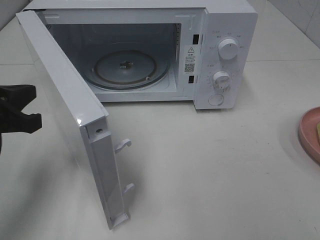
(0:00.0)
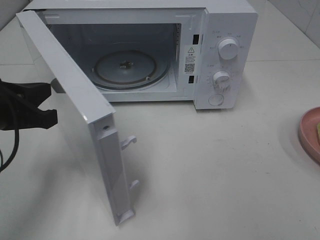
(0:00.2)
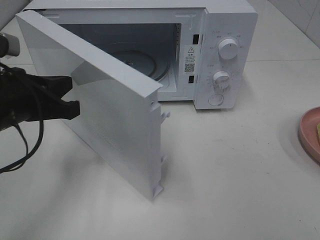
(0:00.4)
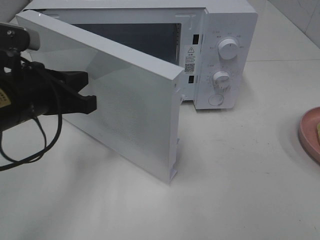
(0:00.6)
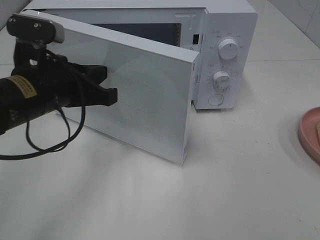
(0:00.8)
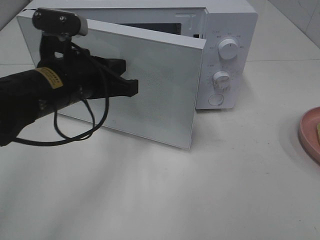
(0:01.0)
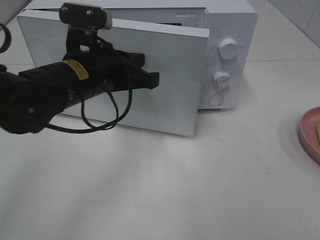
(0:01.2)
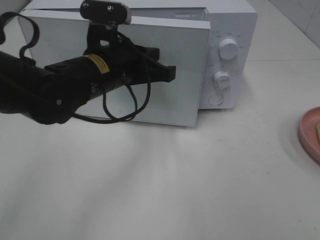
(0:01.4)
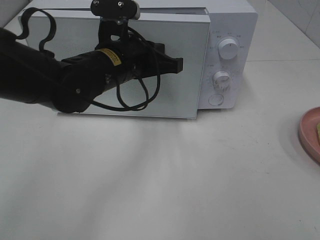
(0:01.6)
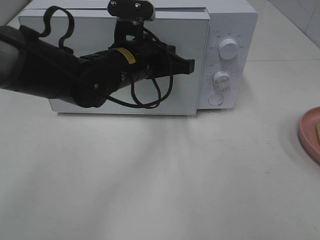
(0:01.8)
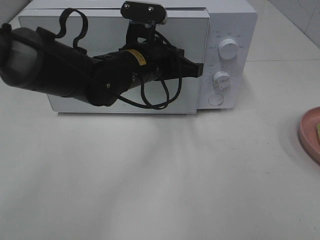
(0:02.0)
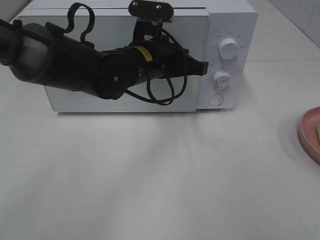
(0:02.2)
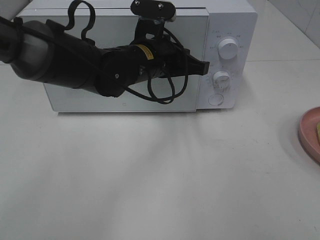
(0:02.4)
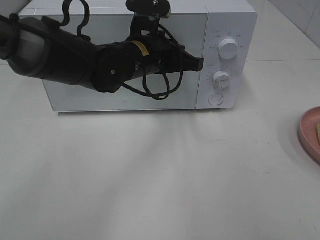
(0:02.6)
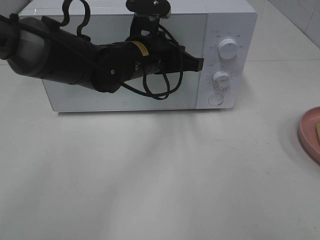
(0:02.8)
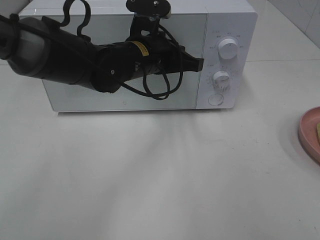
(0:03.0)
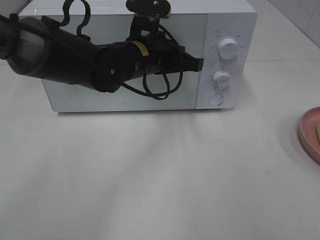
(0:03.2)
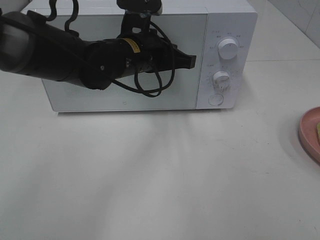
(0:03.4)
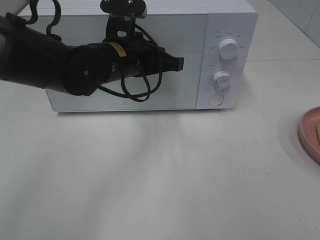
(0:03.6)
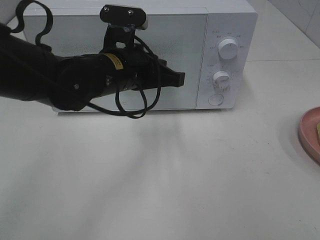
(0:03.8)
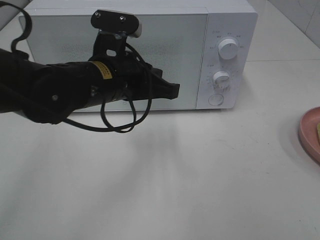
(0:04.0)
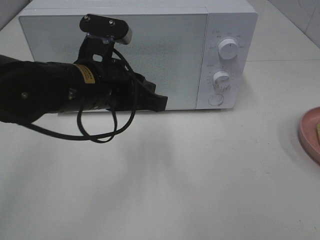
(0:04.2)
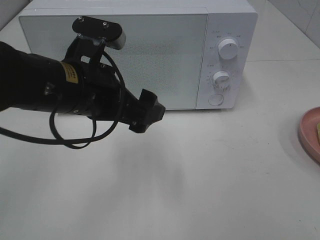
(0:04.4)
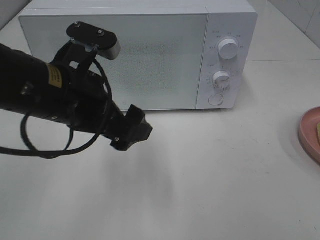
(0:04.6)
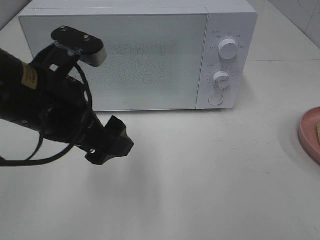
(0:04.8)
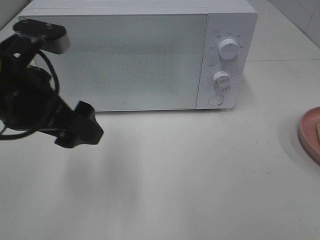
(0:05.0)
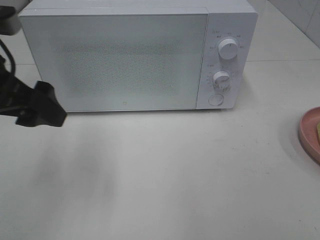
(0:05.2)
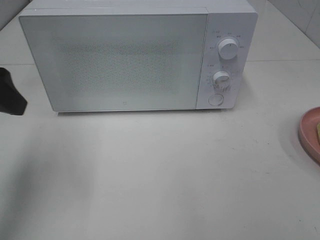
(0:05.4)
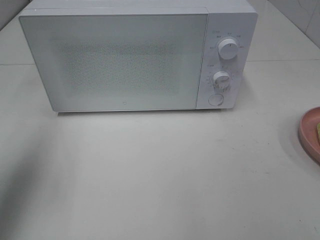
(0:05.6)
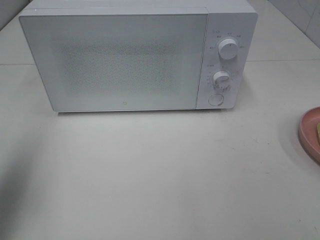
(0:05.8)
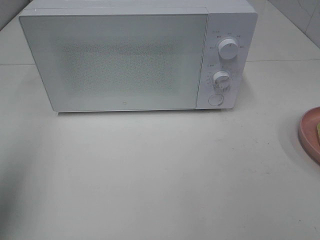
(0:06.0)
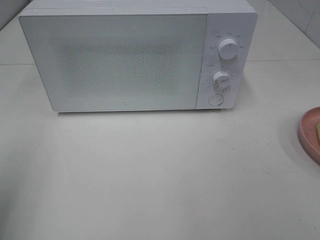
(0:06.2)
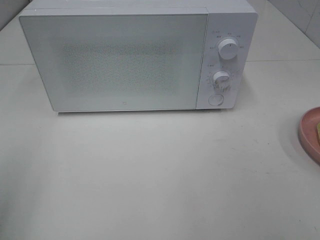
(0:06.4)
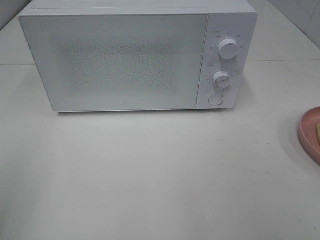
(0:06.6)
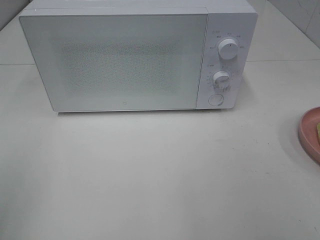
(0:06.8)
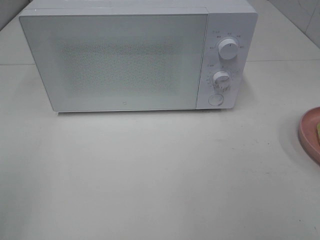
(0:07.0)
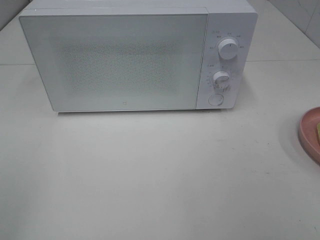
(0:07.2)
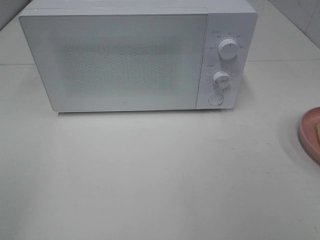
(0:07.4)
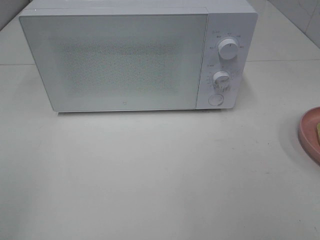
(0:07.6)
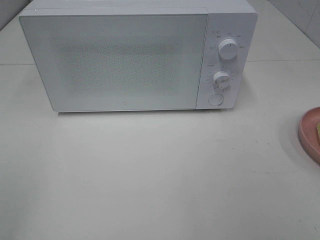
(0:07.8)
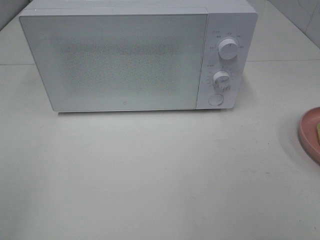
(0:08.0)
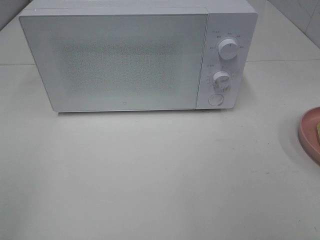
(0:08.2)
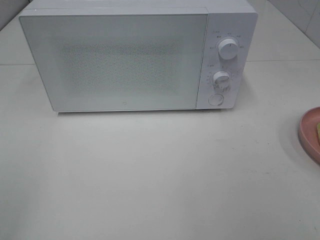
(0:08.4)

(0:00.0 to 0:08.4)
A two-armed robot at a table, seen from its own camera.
Task of the whole recording: Heat Sandwich.
Step, 0:00.0 - 0:04.2: Left hand: close the microwave door.
0:00.0 - 0:01.4: The left gripper heads to the right and forward, covering some 20 cm.
0:01.4 - 0:02.8: The left gripper moves forward, roughly 5 cm.
0:02.8 - 0:04.2: The left gripper travels backward and to the left by roughly 10 cm.
0:04.2 - 0:05.6: The left gripper travels to the left and upward by some 25 cm, and opens.
0:05.6 - 0:07.0: The left gripper moves backward, about 20 cm.

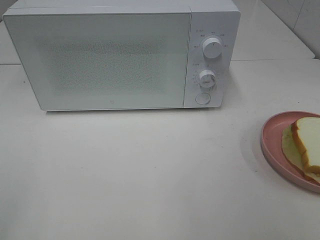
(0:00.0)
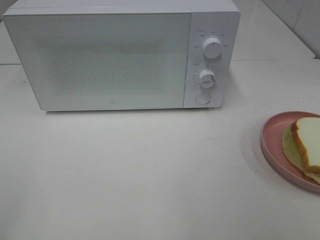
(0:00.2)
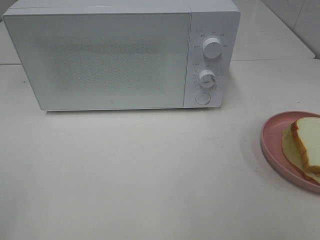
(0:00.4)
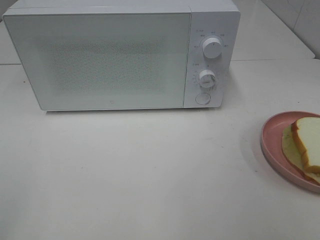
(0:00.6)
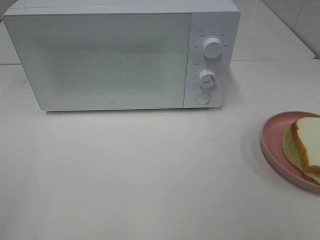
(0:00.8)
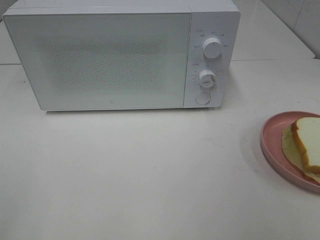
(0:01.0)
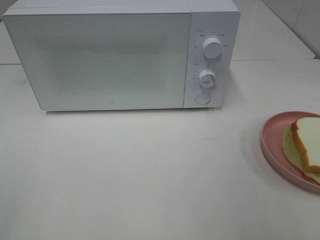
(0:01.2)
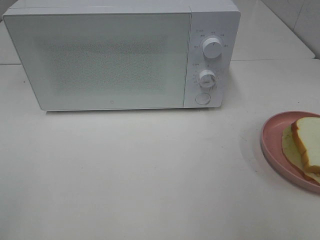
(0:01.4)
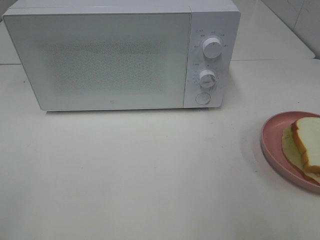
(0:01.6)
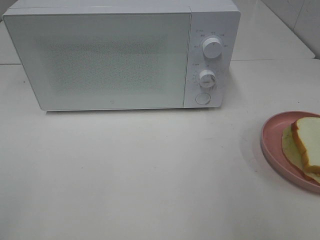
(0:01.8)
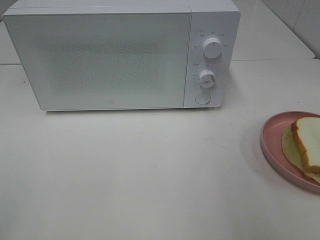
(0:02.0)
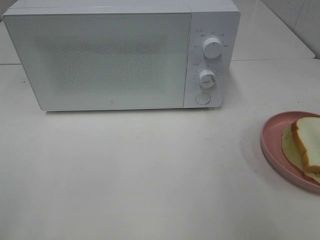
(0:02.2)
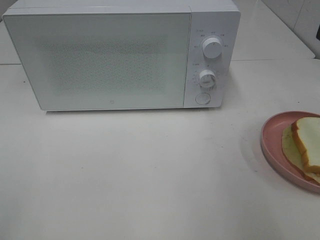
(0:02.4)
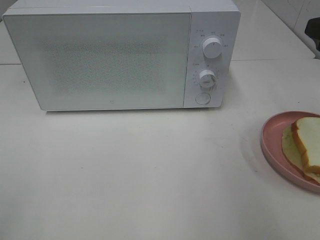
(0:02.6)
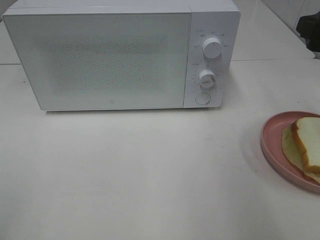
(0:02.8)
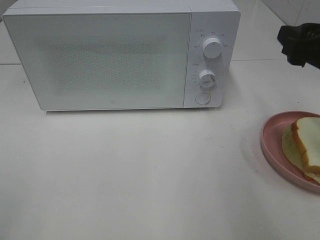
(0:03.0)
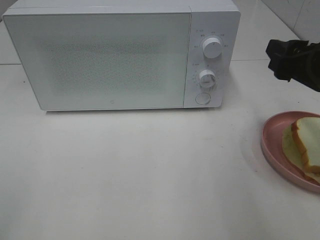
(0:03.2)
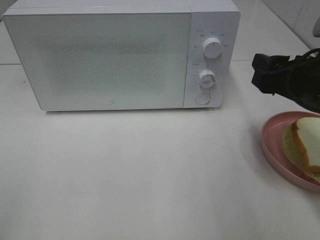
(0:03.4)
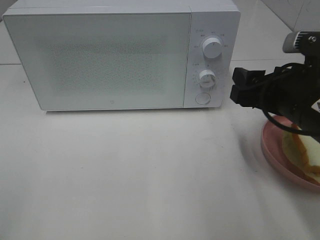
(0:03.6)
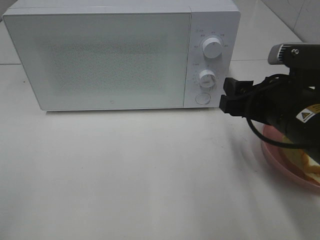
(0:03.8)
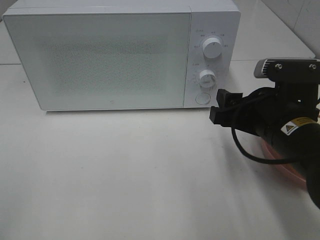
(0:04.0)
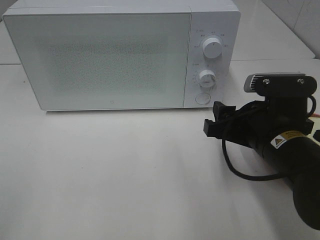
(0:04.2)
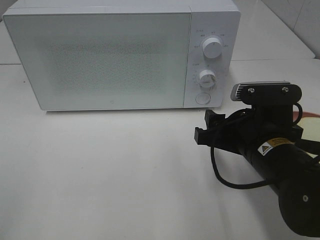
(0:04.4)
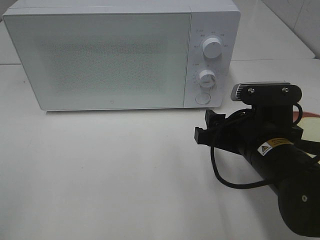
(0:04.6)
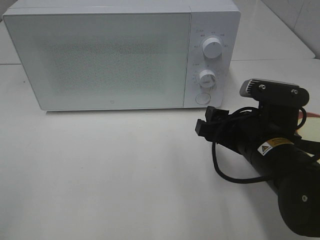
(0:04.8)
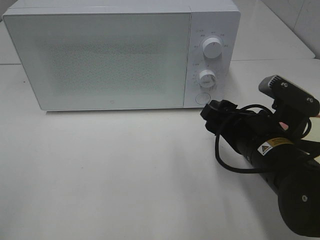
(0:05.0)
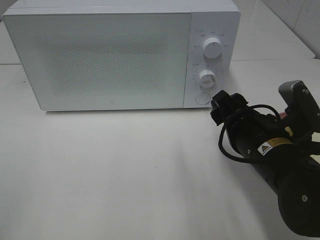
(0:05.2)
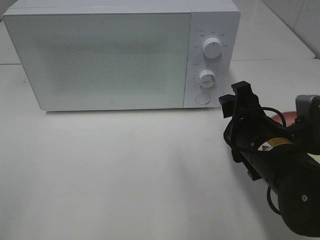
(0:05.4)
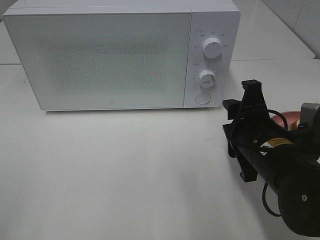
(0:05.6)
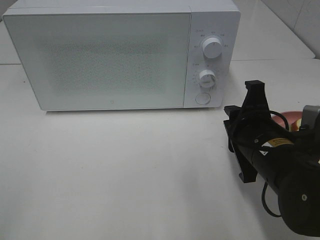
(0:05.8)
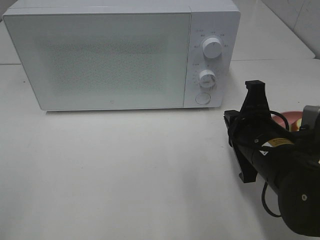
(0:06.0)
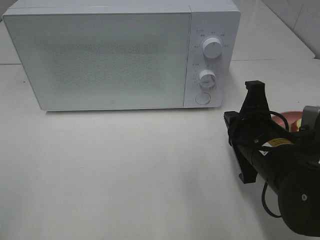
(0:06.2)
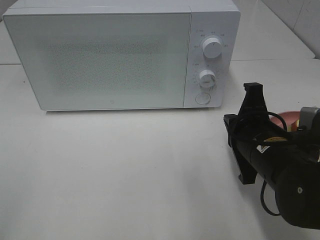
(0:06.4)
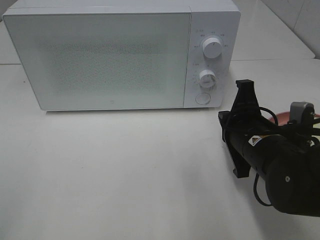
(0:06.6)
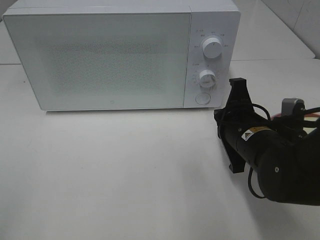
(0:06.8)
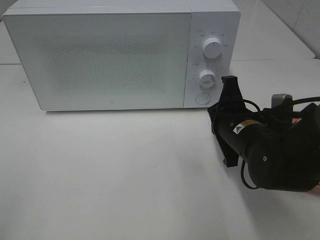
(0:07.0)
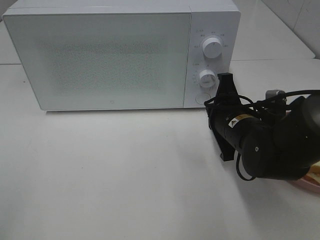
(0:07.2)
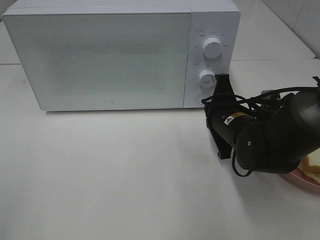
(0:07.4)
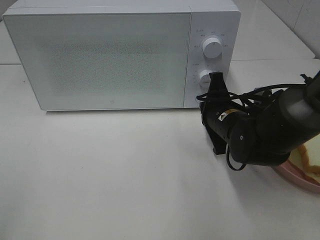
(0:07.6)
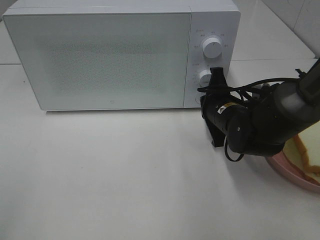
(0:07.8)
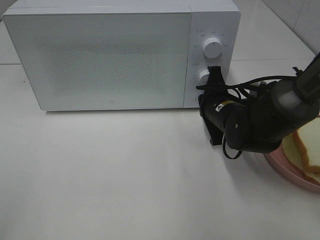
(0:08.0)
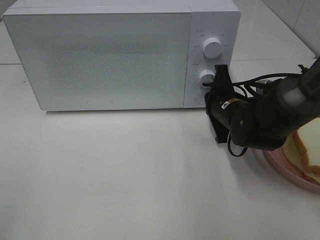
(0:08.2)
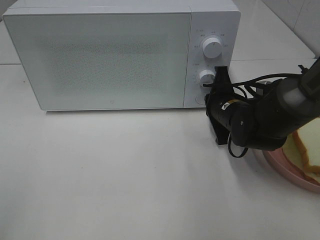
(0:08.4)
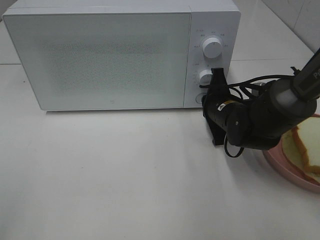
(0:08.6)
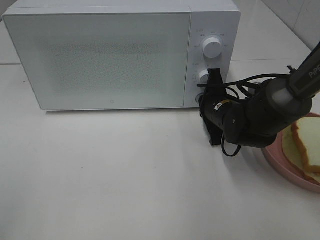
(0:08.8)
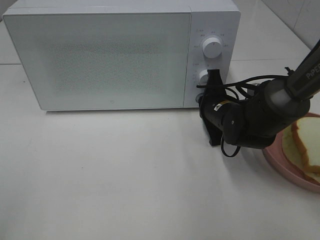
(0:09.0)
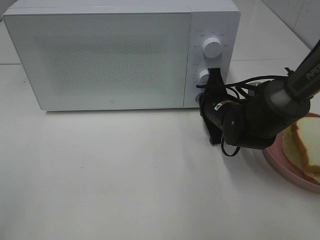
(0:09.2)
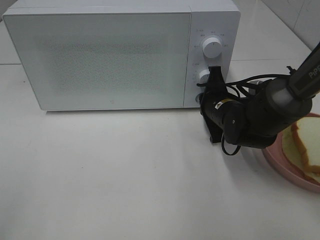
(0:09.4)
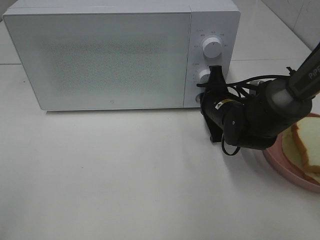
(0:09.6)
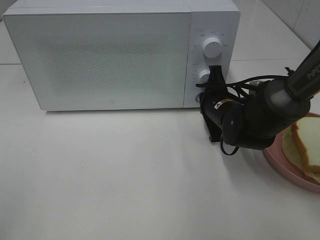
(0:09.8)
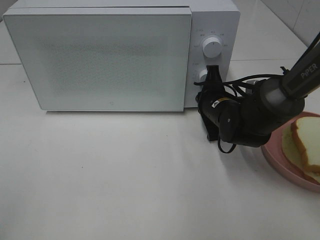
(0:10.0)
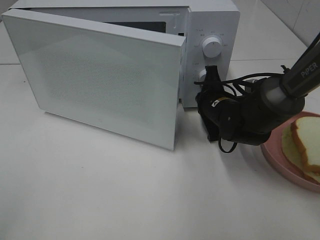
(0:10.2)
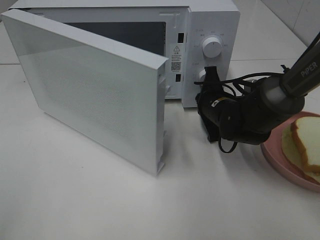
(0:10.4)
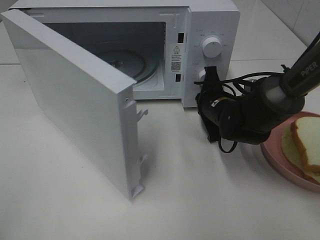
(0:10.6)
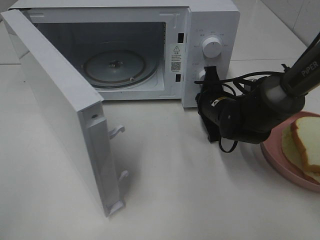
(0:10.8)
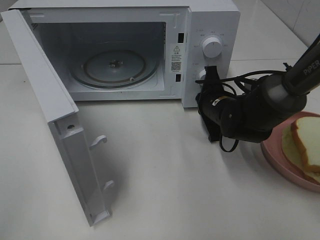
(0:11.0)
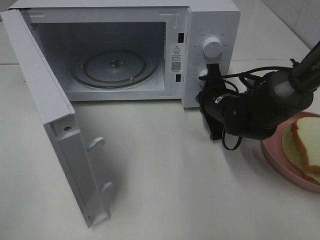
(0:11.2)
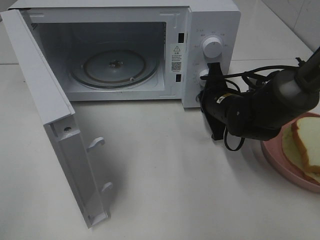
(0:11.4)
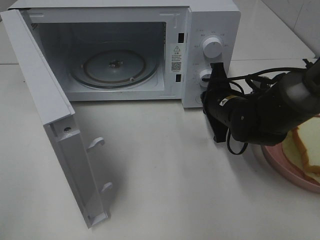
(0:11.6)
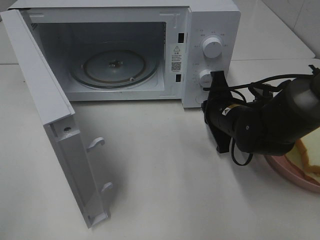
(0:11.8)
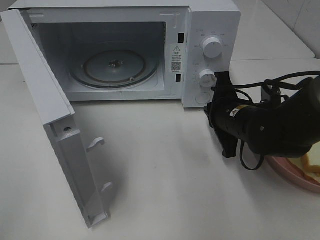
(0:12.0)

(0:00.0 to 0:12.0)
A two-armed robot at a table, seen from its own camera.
Task of the whole recording: Heat Sandwich.
Step, 0:00.0 - 0:11.6: Right hand: press the switch.
0:01.6 - 0:03.0: The right gripper goes roughly 15 cm forward and downward.
0:03.0 - 0:04.4: The right gripper moves downward and to the left, about 15 cm.
0:04.4 - 0:06.0: The right gripper closes its fingers.
0:06.0 - 0:07.6: The right gripper is displaced forward by approximately 10 cm.
0:07.6 - 0:09.0: The grippers move only a little.
0:09.0 - 0:10.4: The two grippers keep their place.
0:10.4 - 0:12.0: The right gripper heads backward, covering roughly 5 cm.

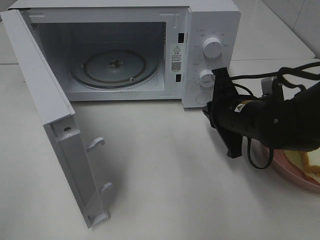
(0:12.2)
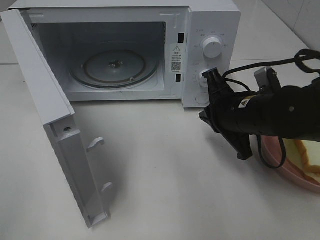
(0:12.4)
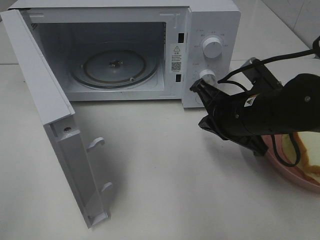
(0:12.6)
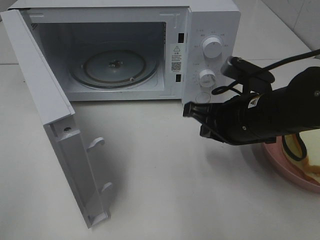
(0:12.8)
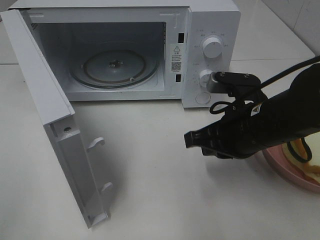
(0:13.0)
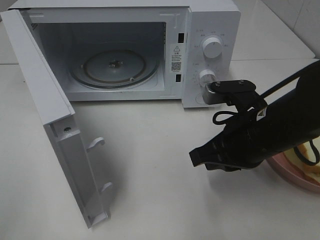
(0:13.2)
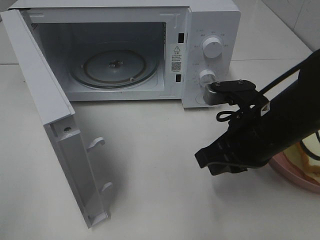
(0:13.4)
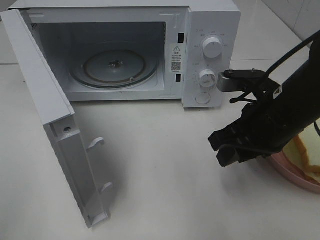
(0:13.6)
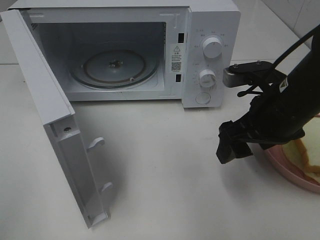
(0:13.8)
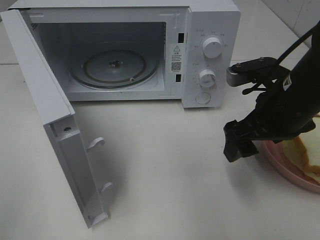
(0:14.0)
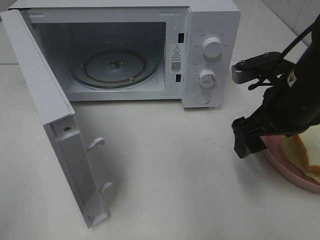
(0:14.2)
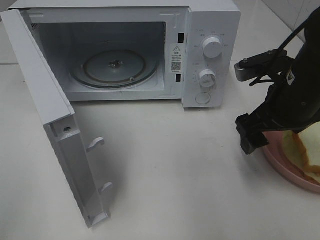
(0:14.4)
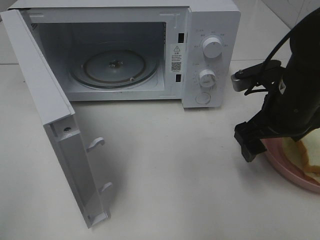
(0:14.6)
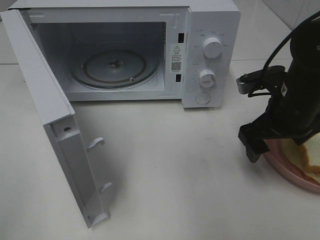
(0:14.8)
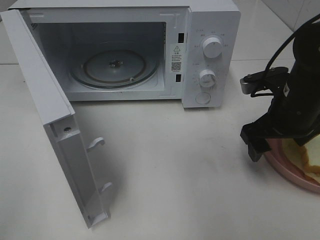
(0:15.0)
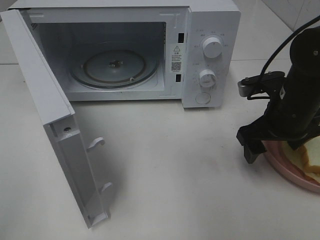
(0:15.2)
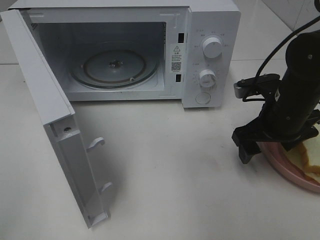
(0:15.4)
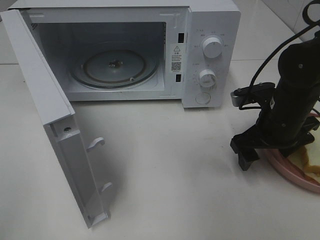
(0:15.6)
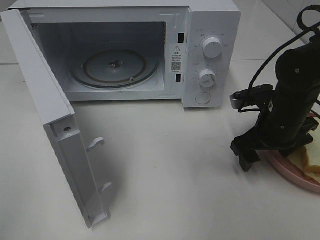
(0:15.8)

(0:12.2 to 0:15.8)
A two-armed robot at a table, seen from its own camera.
Task of the whole recording: Heat Sandwich.
0:12.2 - 0:14.0: The right gripper goes about 5 cm upward, and opens its fingers.
0:14.0 - 0:15.8: The right gripper is displaced downward by some 5 cm.
